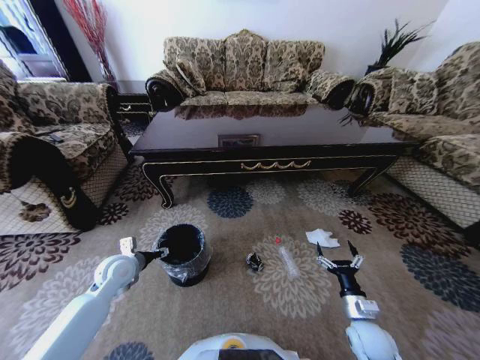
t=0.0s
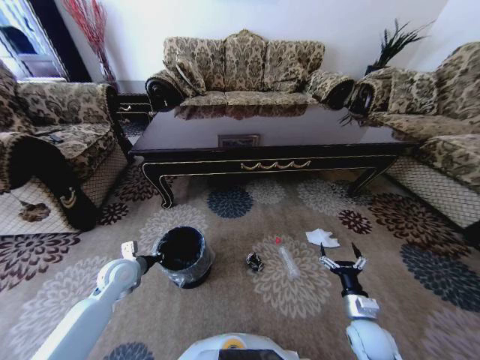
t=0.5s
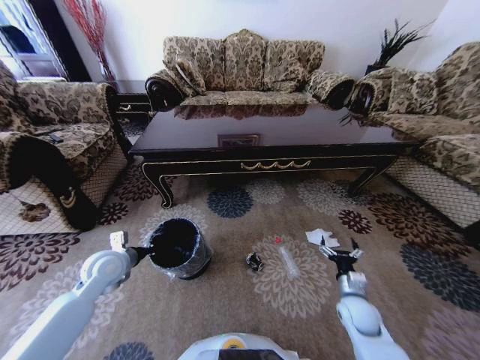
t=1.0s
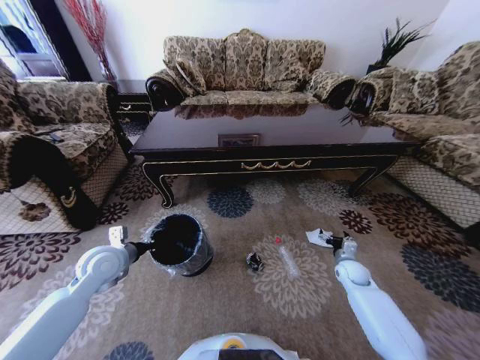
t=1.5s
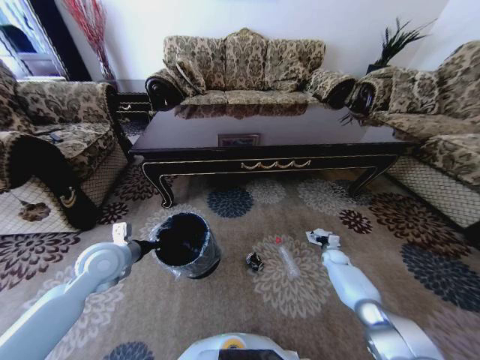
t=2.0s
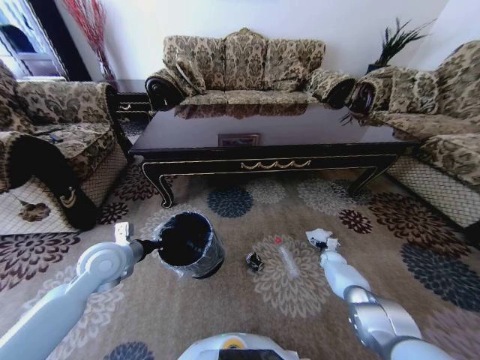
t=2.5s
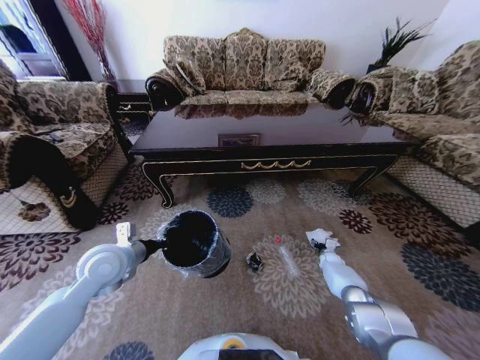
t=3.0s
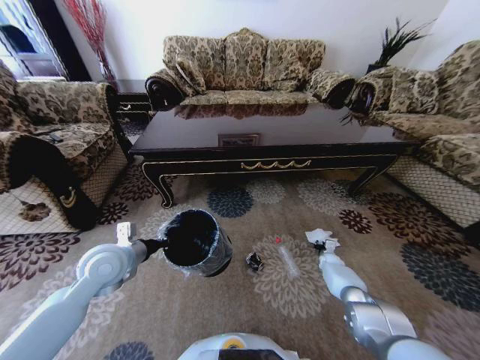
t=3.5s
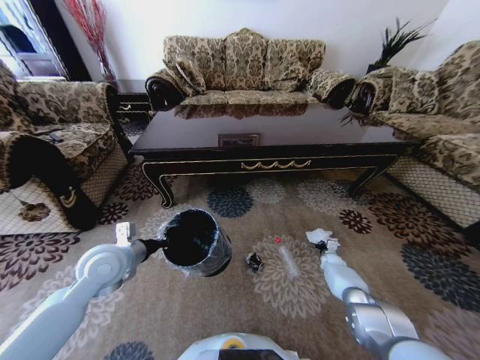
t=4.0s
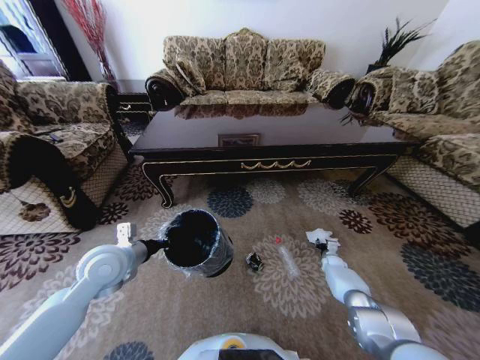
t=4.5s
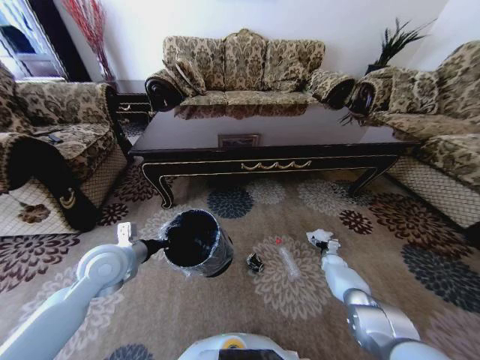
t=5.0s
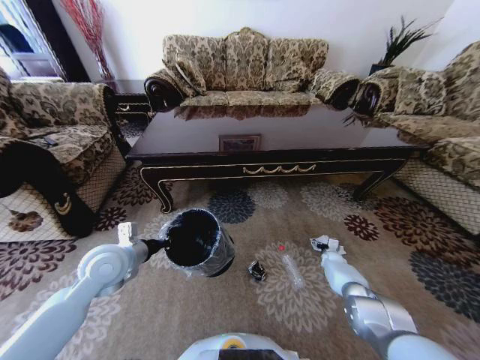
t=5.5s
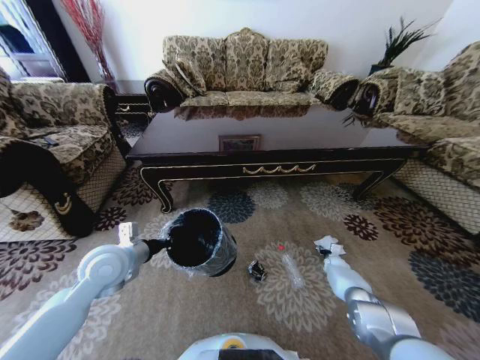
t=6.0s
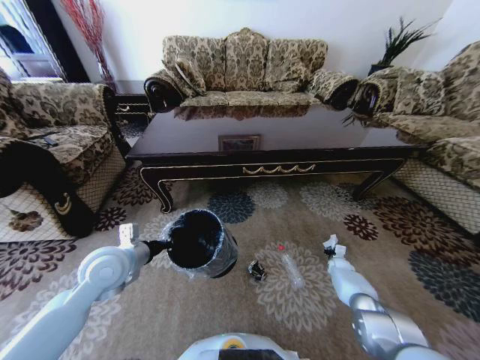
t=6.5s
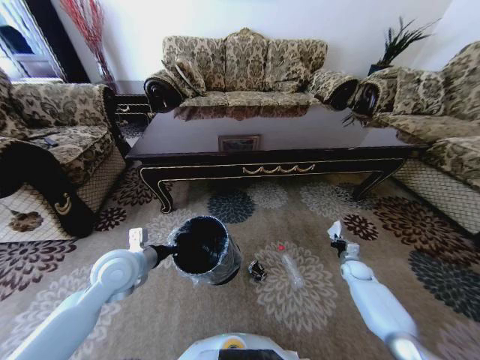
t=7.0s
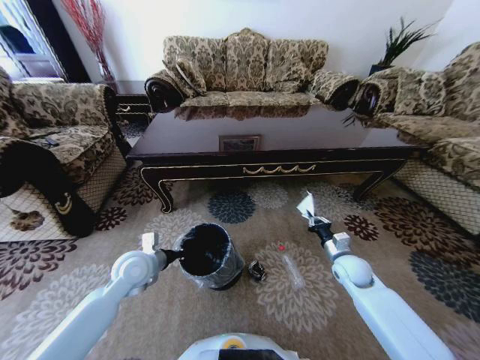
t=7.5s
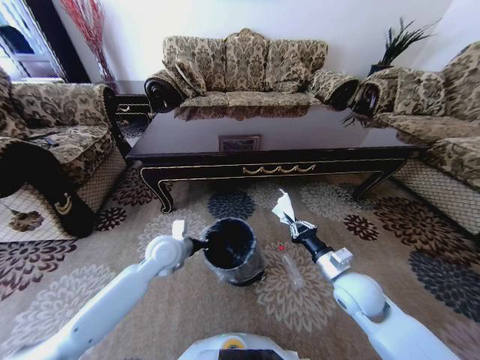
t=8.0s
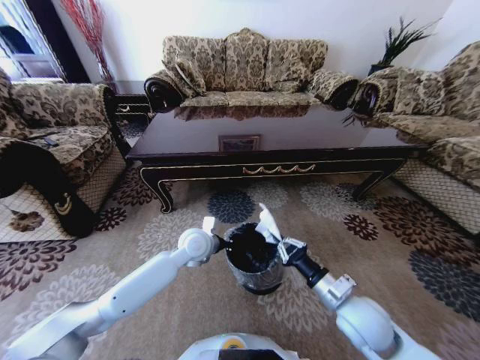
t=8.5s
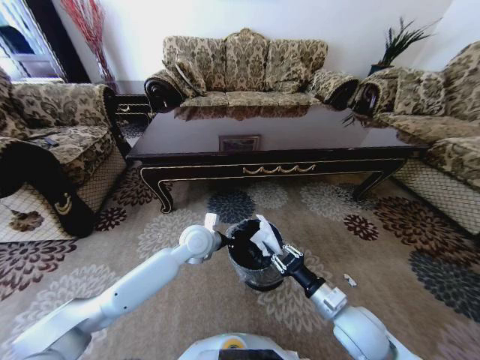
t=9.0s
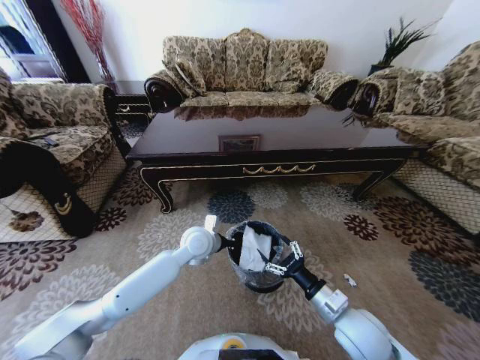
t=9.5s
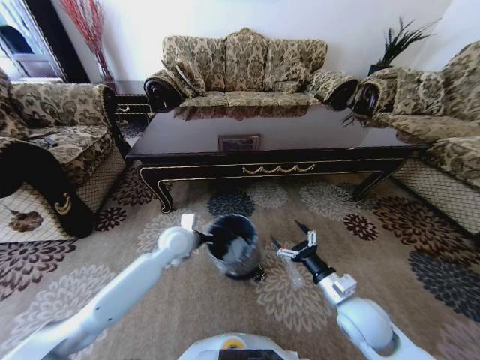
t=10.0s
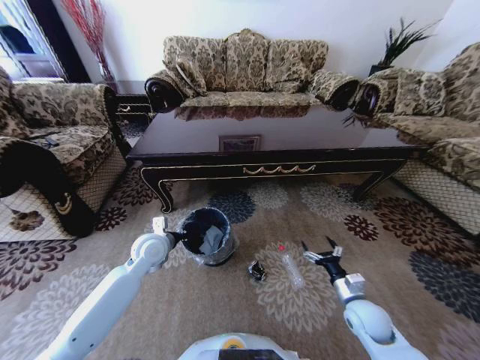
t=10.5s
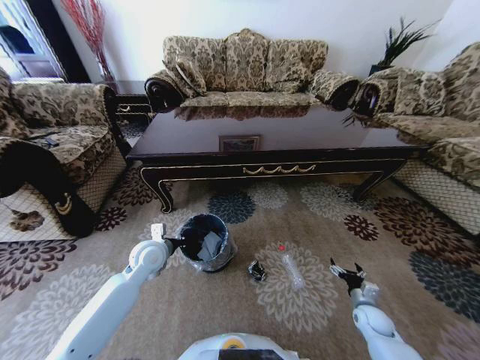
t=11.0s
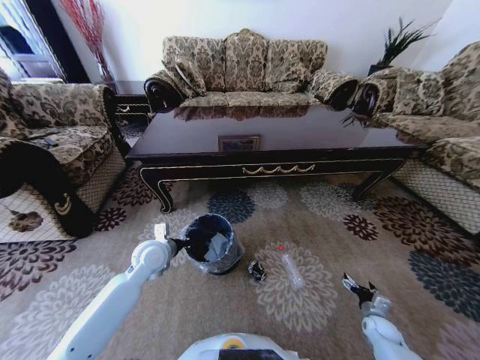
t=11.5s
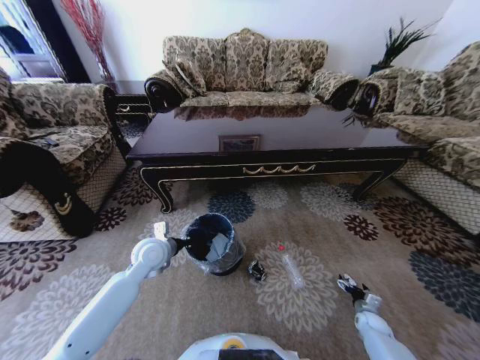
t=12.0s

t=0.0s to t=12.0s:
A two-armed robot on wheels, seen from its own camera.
Task of the whole recording: Move to the front of the table and pick up the trash from the floor, then place it into the trash bin.
t=0.0s to t=2.0s: The right gripper goes about 30 cm forward. The left gripper goes approximately 10 cm upward, and closes up.
t=2.0s to t=4.0s: The right gripper closes its fingers.
t=4.0s to t=6.0s: The right gripper opens up.
t=6.0s to t=8.0s: The left gripper heads to the right, forward and downward, covering about 15 cm. The right gripper is displaced upward, backward and to the left by some 35 cm, and closes up.
t=8.0s to t=10.0s: The left gripper goes to the right and returns, roughly 10 cm each way; the right gripper travels backward by roughly 5 cm, and opens.
t=10.0s to t=12.0s: The left gripper shifts about 5 cm to the left; the right gripper shifts about 35 cm downward and to the right.

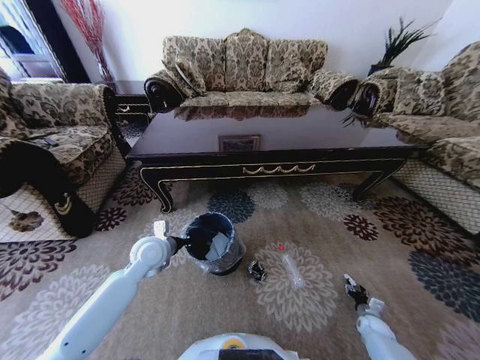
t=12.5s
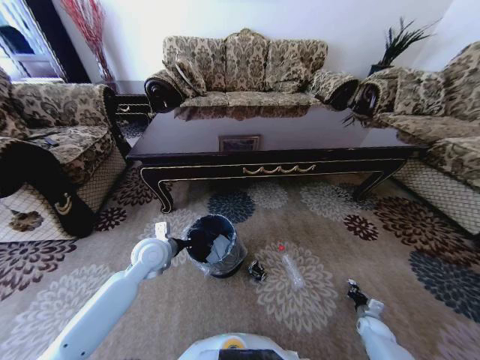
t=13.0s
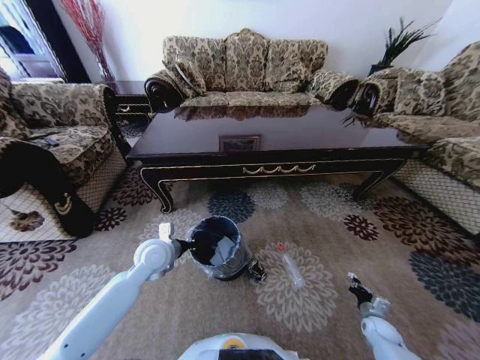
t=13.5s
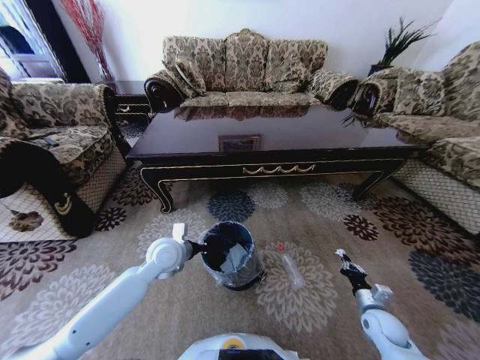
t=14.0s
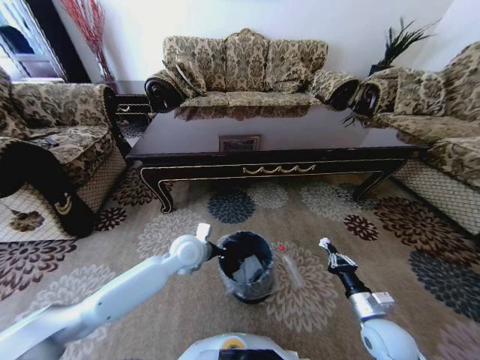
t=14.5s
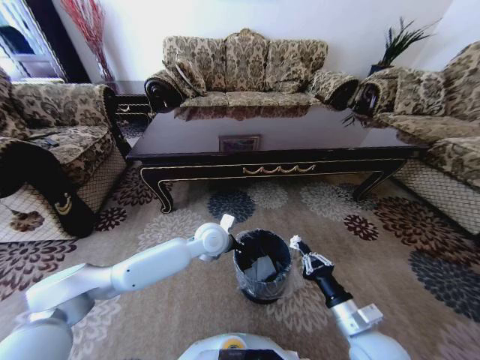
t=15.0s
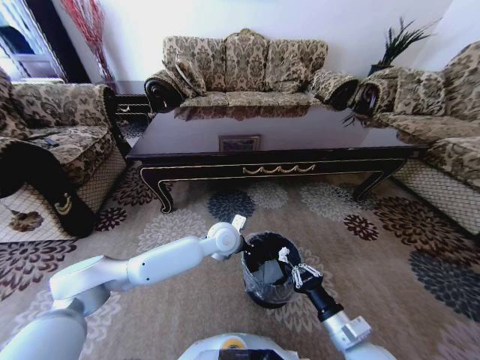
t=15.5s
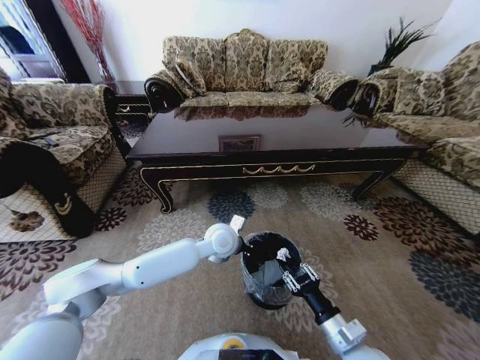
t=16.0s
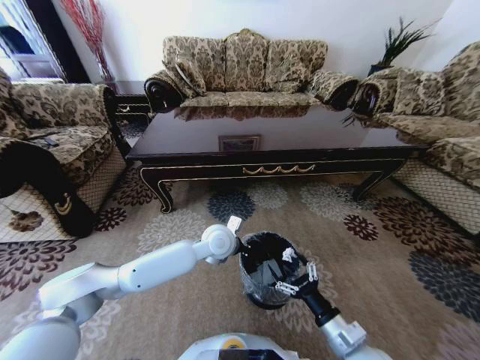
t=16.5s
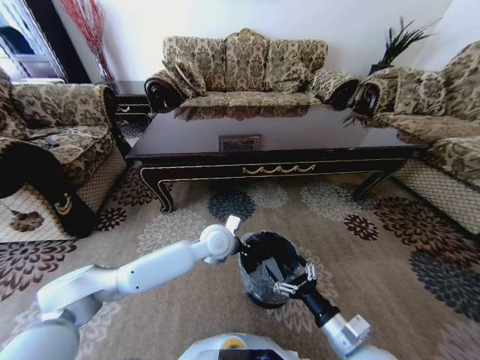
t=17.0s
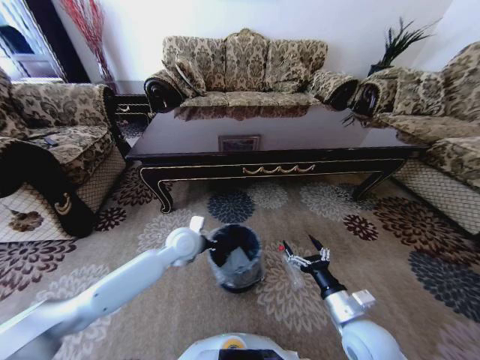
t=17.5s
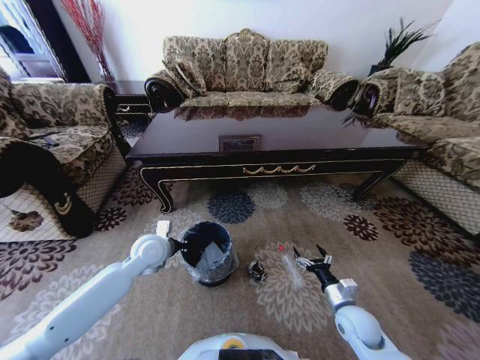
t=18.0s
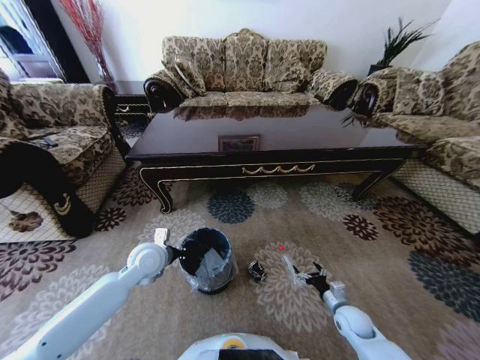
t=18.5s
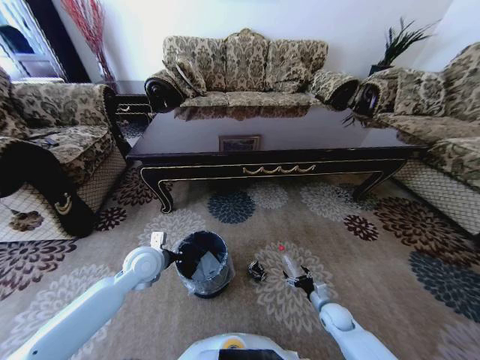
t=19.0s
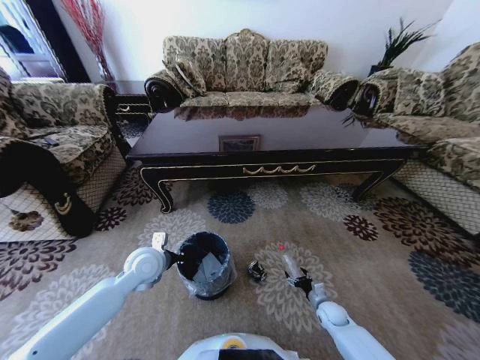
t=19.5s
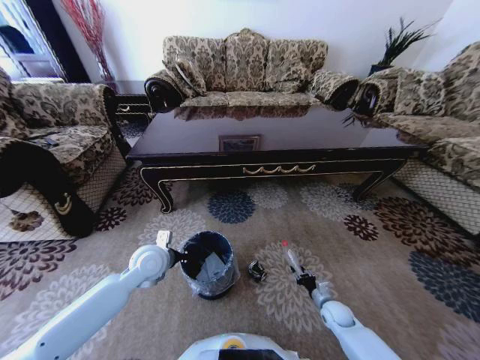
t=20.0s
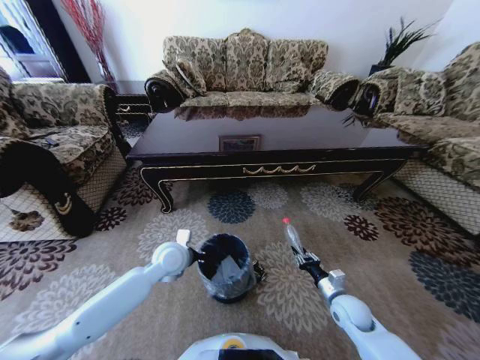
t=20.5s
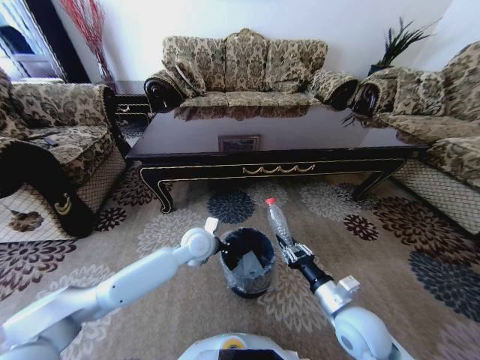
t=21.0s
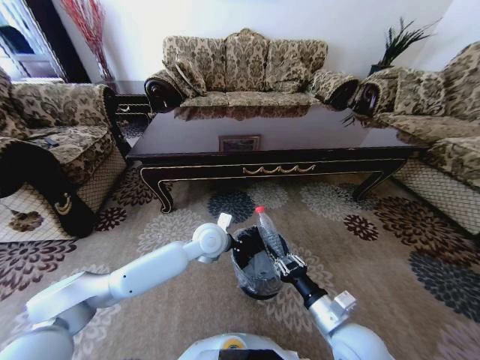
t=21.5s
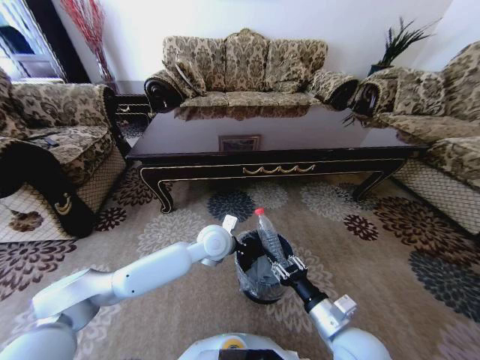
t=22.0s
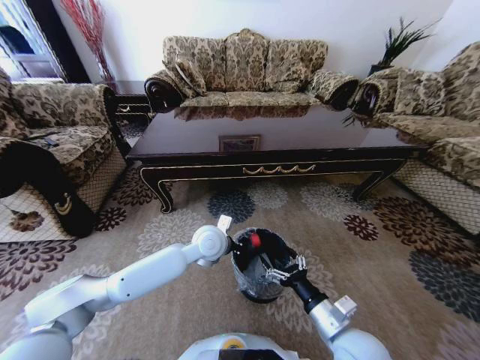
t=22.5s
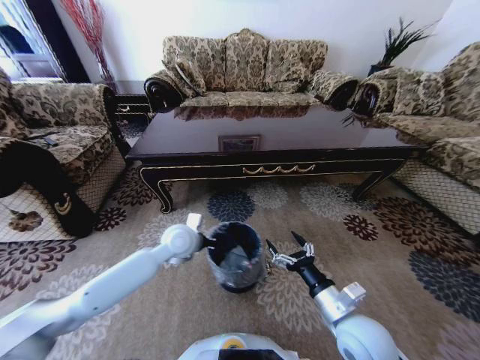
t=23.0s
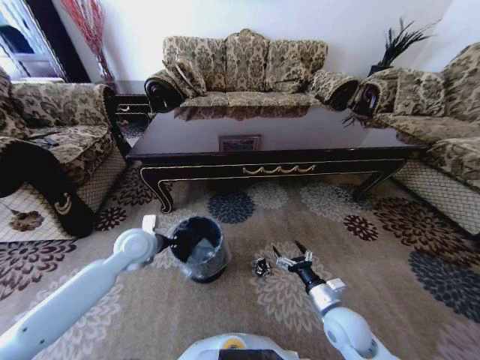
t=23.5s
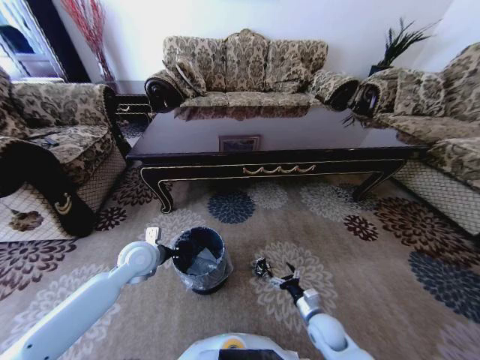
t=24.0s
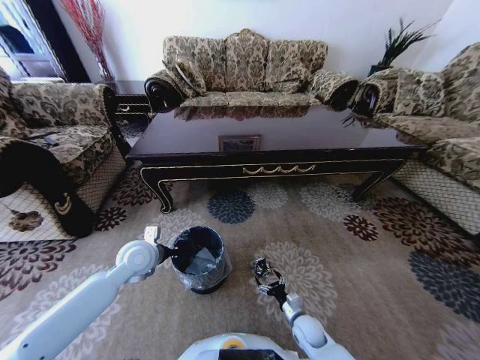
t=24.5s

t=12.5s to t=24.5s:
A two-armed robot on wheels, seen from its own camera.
Task of the whole recording: Move to the front of the table and pick up the trash from the floor, then place it into the trash bin.
t=12.5s to t=14.5s: The left gripper goes about 10 cm to the right; the right gripper heads upward and to the left, covering approximately 25 cm, and closes.
t=14.5s to t=16.5s: The left gripper travels to the right by about 10 cm. Meanwhile the right gripper heads to the left and backward, covering some 10 cm, and opens up.
t=16.5s to t=18.5s: The right gripper travels downward, forward and to the right by roughly 20 cm. Meanwhile the left gripper shifts some 20 cm to the left.
t=18.5s to t=20.5s: The left gripper is displaced to the right by approximately 5 cm, while the right gripper is displaced upward by some 5 cm, and closes up.
t=20.5s to t=22.5s: The left gripper heads to the right and upward, covering approximately 10 cm; the right gripper travels upward, backward and to the left by roughly 20 cm, and opens up.
t=22.5s to t=24.5s: The left gripper goes approximately 20 cm to the left; the right gripper heads downward, covering approximately 25 cm.

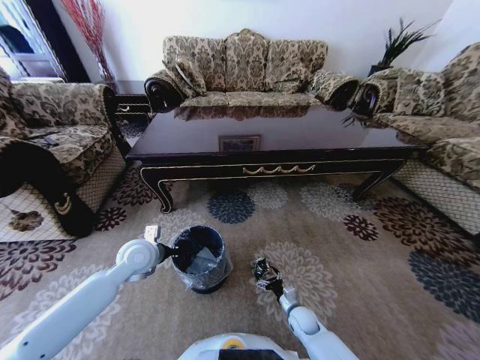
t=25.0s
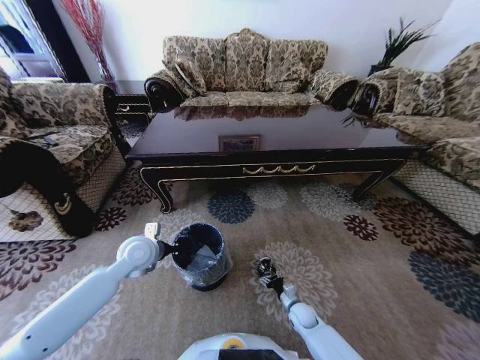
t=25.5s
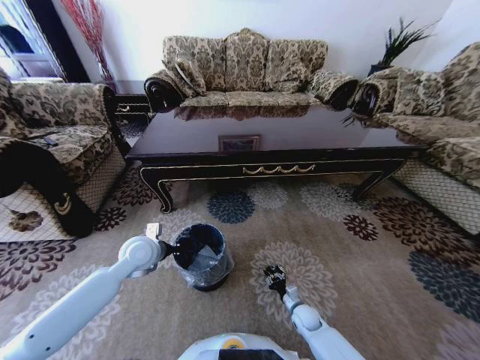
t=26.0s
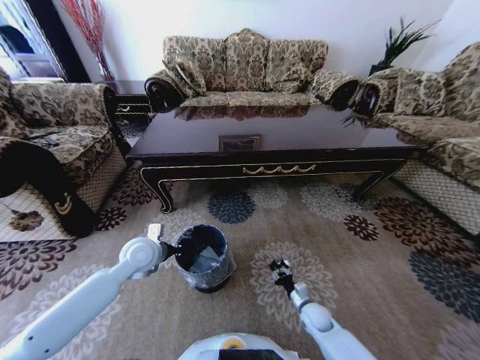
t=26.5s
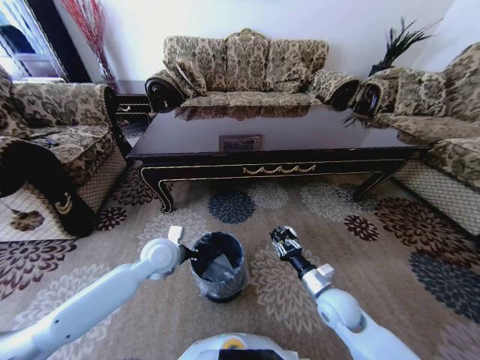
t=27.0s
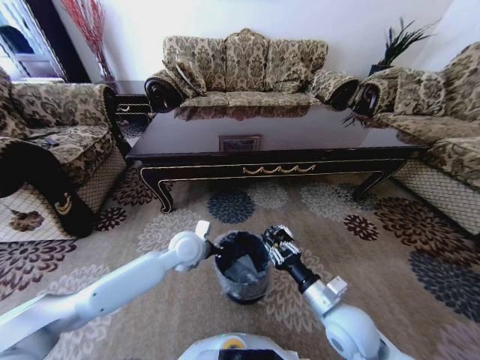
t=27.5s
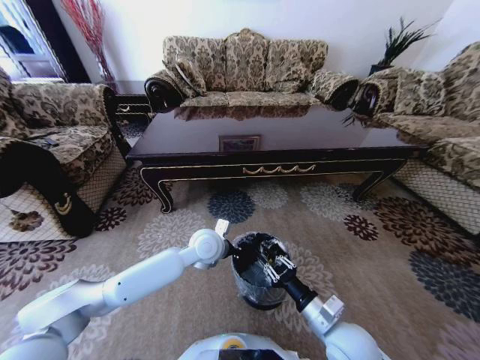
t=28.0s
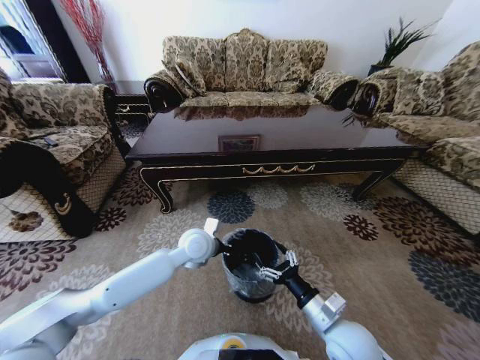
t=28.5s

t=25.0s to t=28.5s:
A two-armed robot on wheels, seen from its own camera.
Task of the whole recording: Move to the front of the table and pick up the trash from the floor, then place it into the trash bin.
t=25.0s to t=27.0s: The left gripper is displaced to the right by about 5 cm. Meanwhile the right gripper moves upward, about 20 cm, and closes.
t=27.0s to t=28.5s: The right gripper is displaced backward and upward by roughly 10 cm, and opens, while the left gripper travels to the right by about 10 cm.
